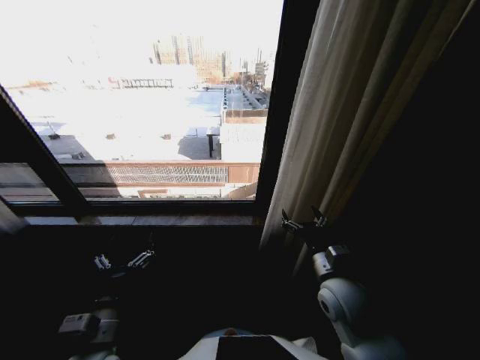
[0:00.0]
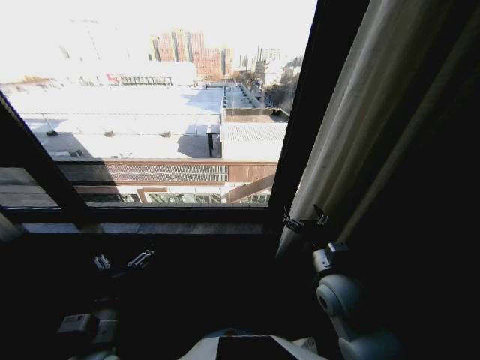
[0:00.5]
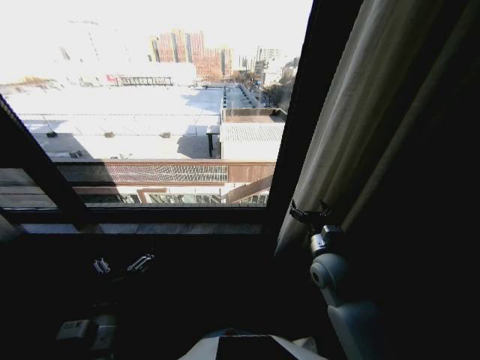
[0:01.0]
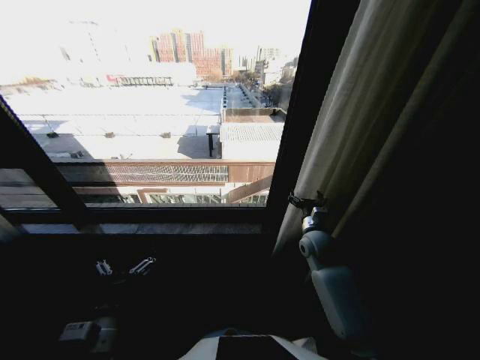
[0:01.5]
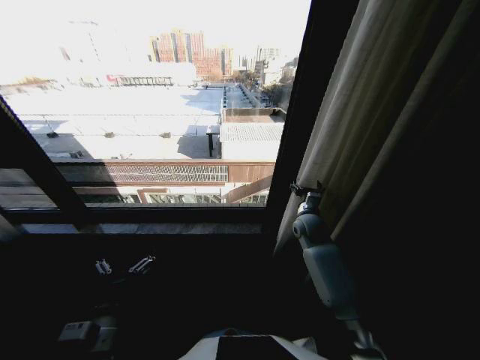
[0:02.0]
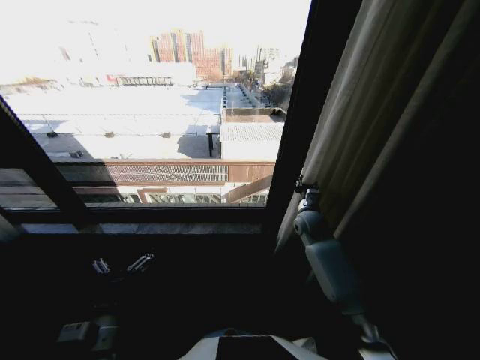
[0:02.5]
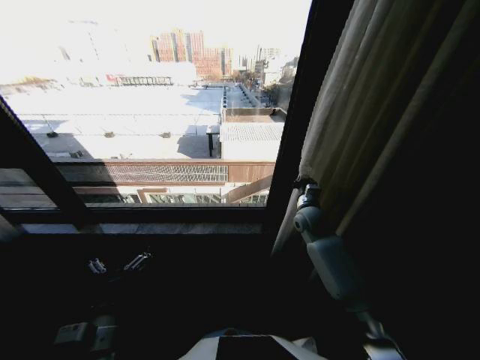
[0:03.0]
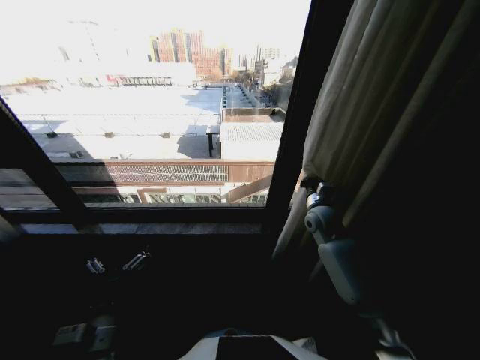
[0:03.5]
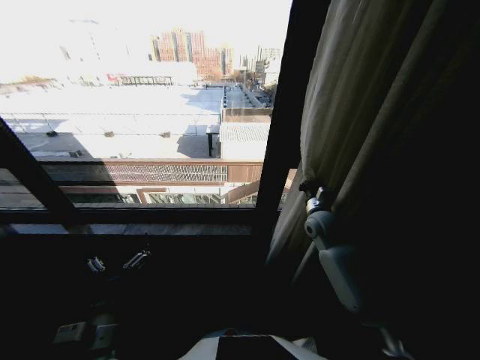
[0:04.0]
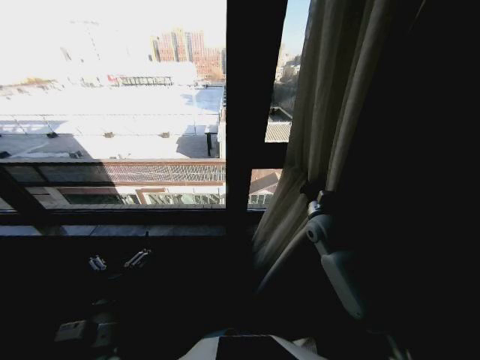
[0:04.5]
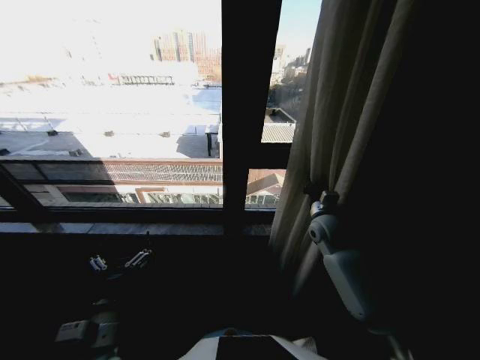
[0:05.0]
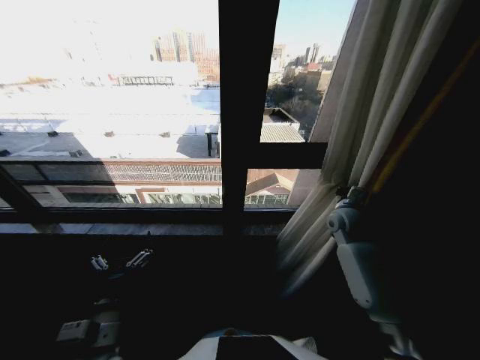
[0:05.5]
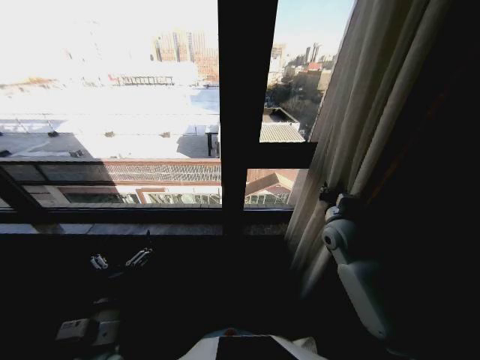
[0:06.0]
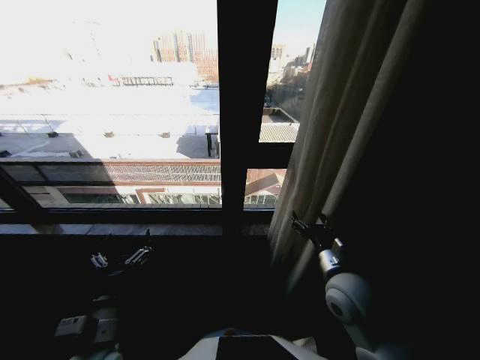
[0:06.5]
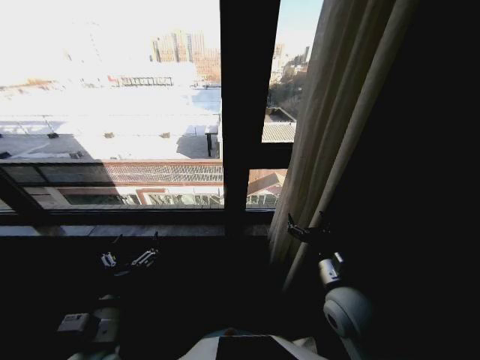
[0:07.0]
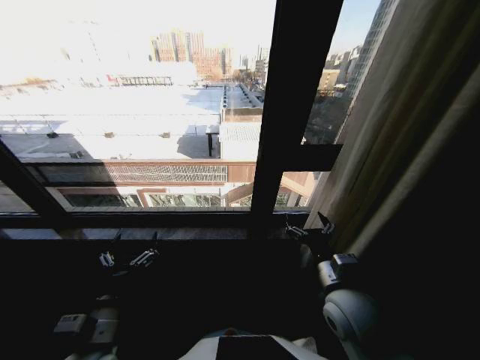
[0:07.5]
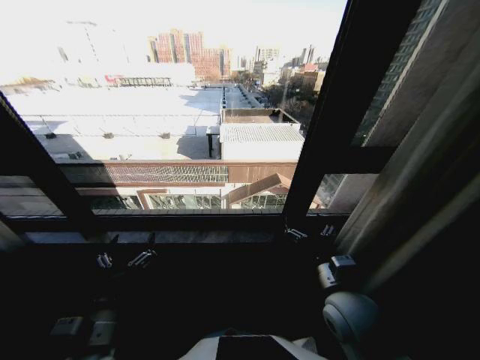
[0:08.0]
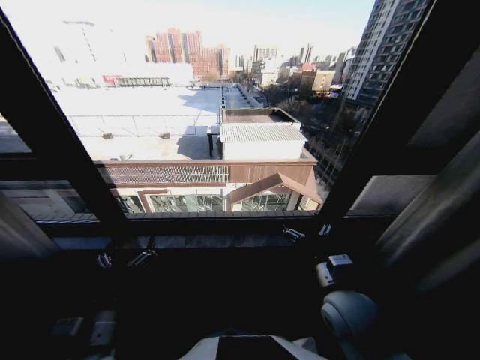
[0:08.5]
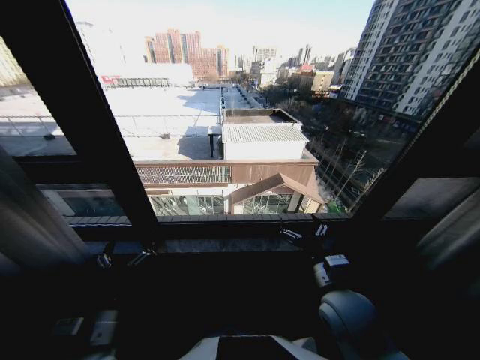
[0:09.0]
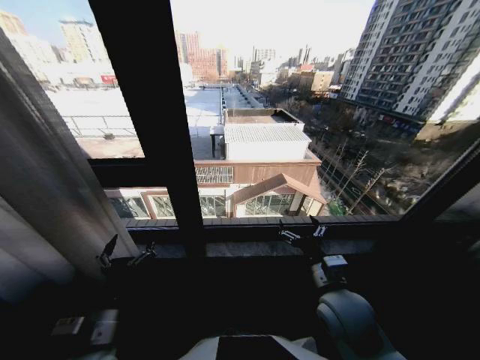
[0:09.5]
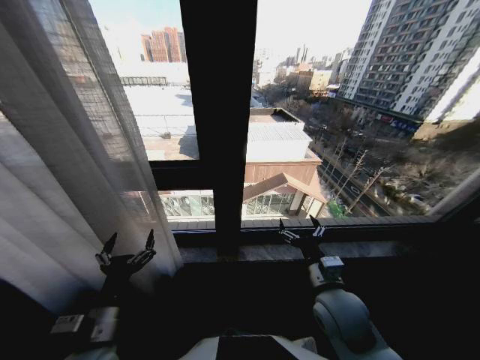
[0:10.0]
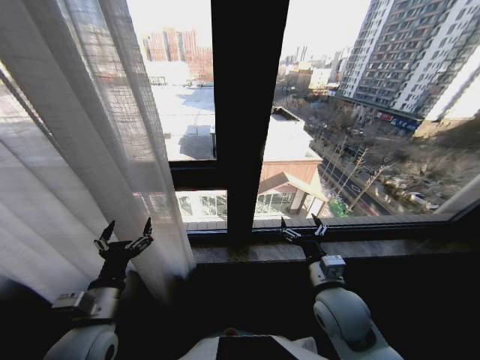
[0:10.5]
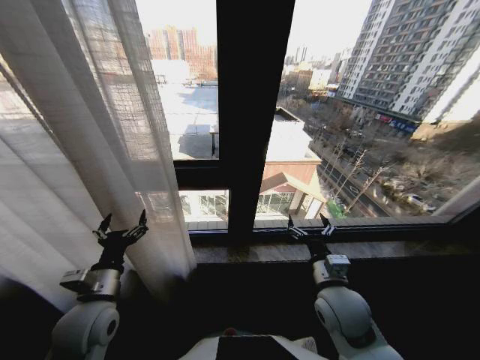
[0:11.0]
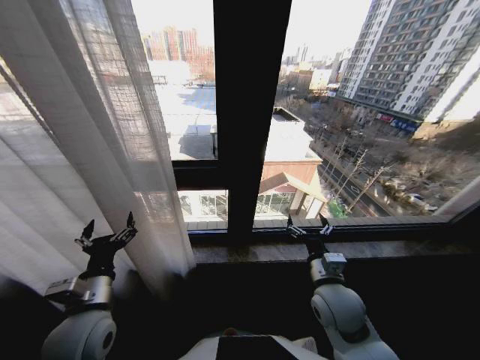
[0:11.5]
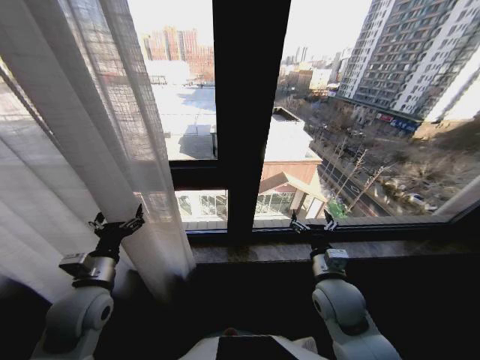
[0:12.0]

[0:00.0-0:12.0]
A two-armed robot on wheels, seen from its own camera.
Task of the whole recording: Open the curtains by pulling them apart, changing their state from closed to fully open.
0:00.0 to 0:02.0: The right gripper heads forward, covering roughly 20 cm.
0:02.0 to 0:04.0: The right gripper closes.
0:04.0 to 0:06.0: The right gripper moves roughly 5 cm.
0:06.0 to 0:08.0: The right gripper heads backward and to the left, covering approximately 20 cm, and opens its fingers.
0:10.0 to 0:12.0: The left gripper moves forward, about 10 cm.

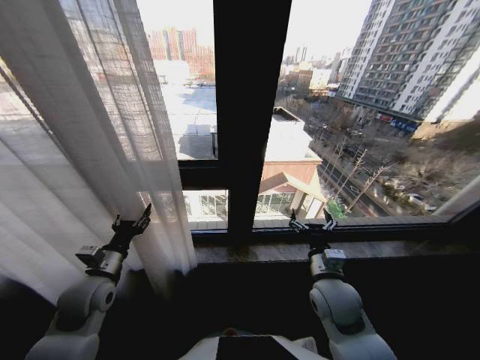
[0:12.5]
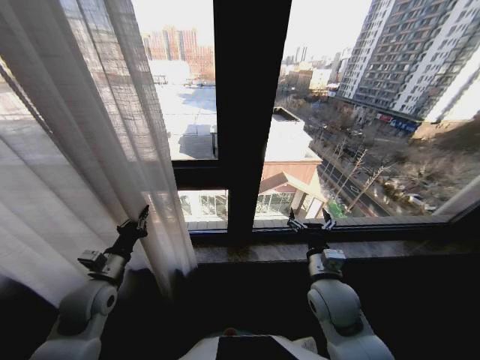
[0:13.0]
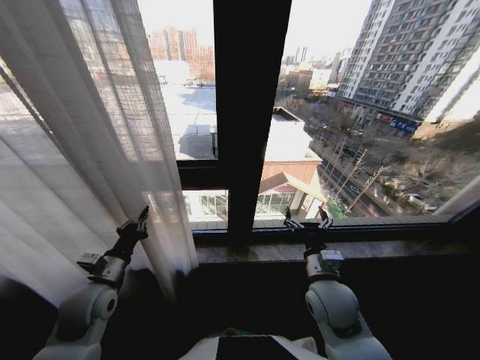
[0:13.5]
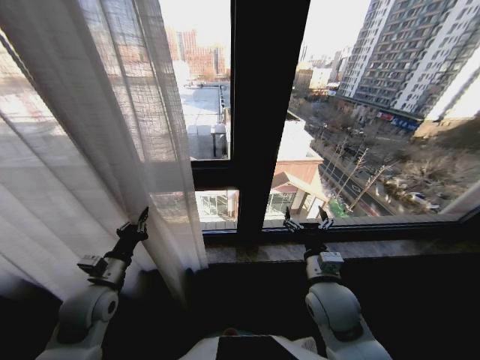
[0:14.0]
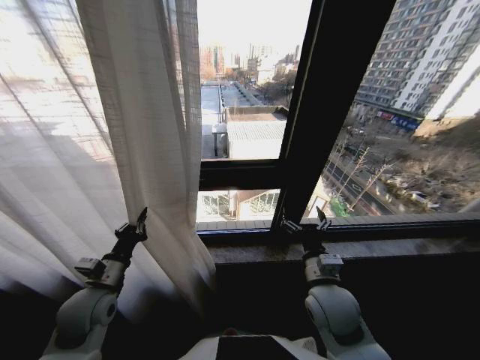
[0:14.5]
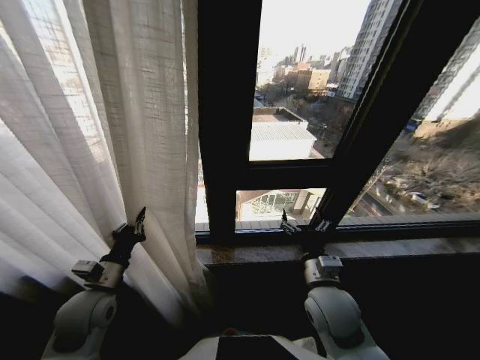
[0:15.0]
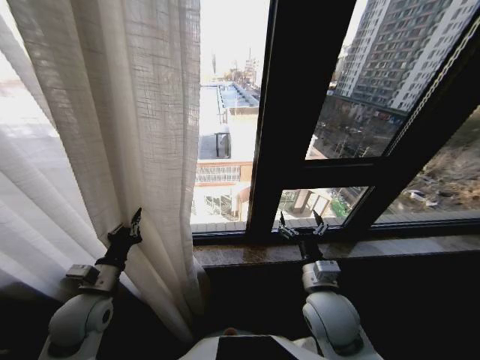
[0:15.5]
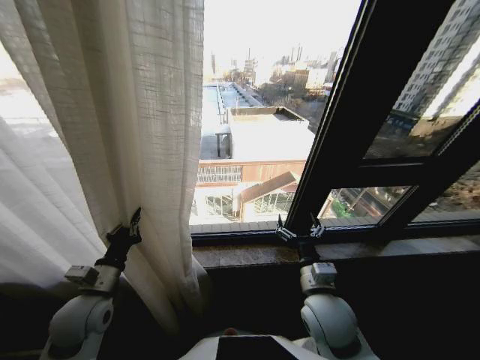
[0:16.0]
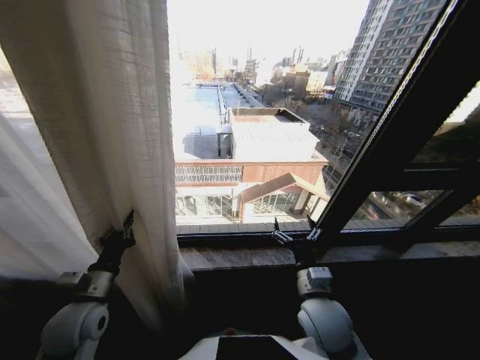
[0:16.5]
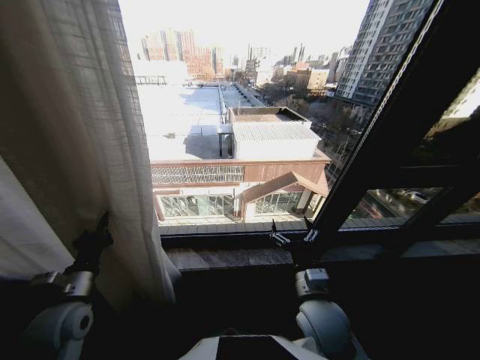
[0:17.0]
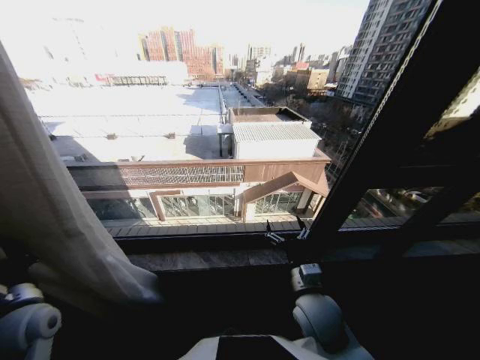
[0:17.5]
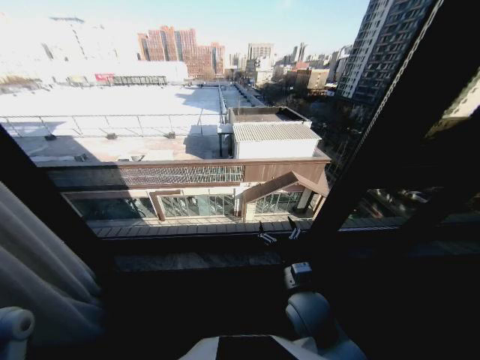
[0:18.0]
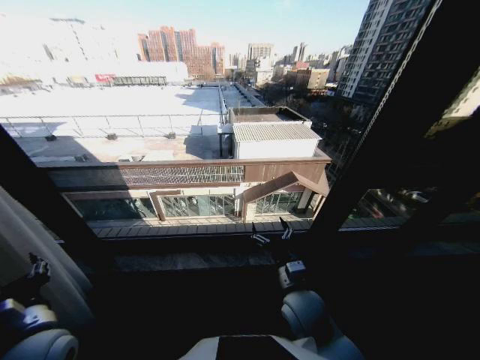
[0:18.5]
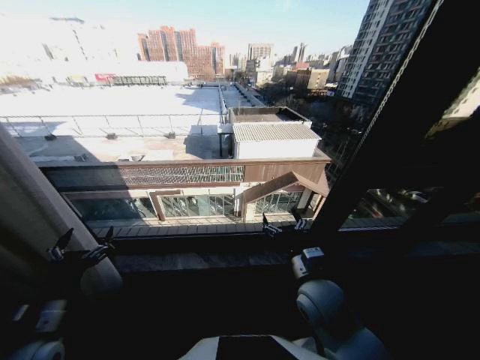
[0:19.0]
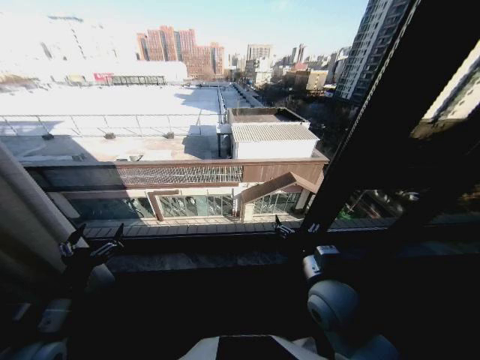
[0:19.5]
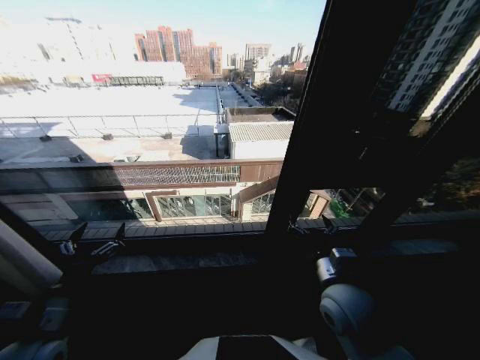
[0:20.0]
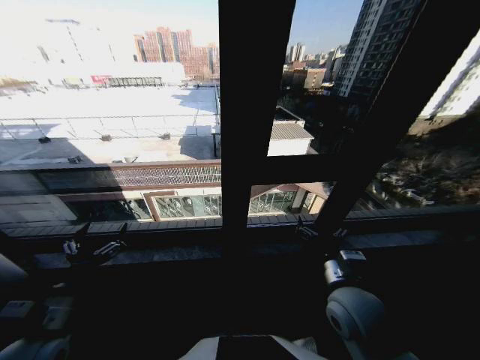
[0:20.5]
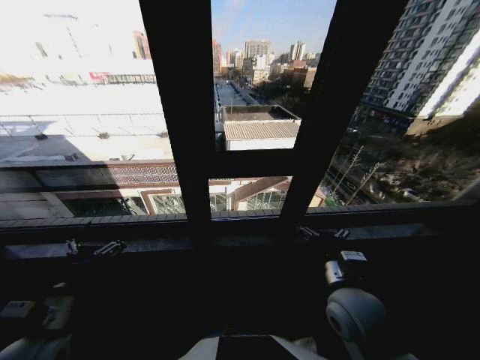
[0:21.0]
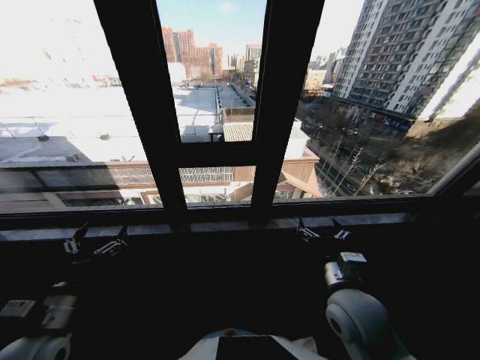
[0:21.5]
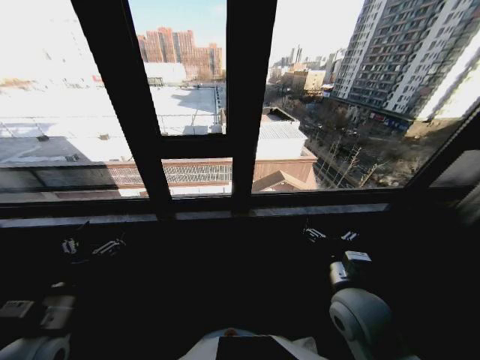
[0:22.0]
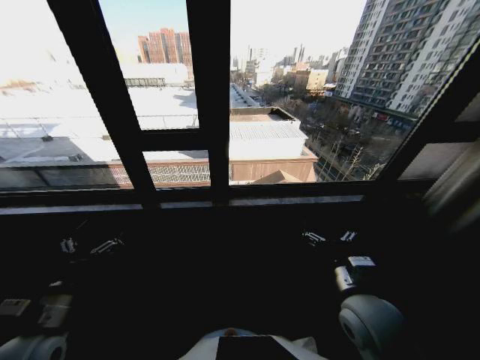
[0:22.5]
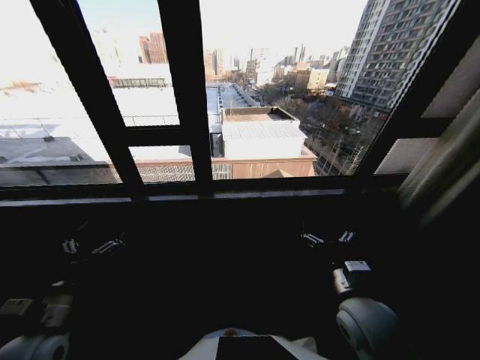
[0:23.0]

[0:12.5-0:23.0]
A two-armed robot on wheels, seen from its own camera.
Task of the whole recording: Open the curtains by pulling them apart, changing their state from closed to fully open.
0:12.5 to 0:14.5: The left gripper closes.
0:16.5 to 0:19.0: The left gripper moves backward, approximately 5 cm, goes to the left and returns, some 15 cm each way, and opens.
0:19.0 to 0:21.0: The right gripper ends up roughly 5 cm from where it was.
